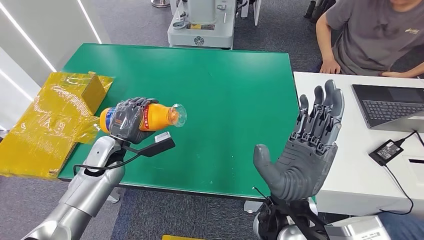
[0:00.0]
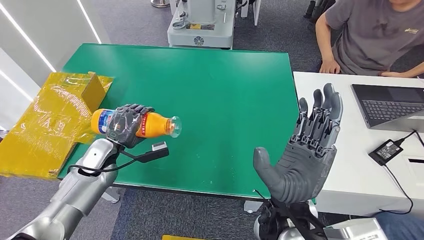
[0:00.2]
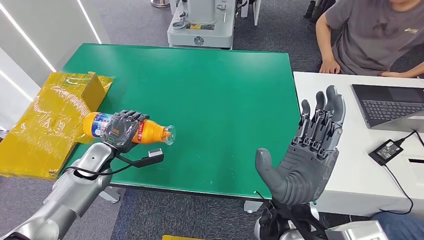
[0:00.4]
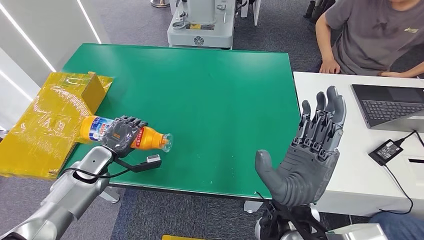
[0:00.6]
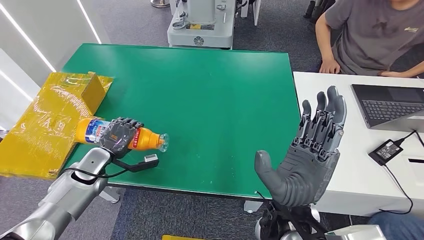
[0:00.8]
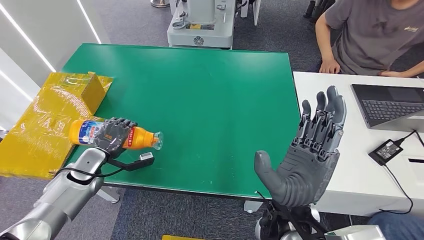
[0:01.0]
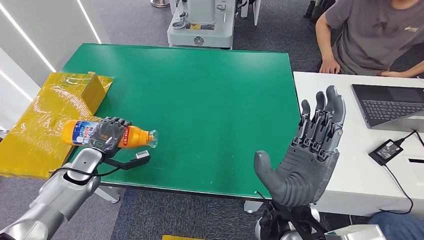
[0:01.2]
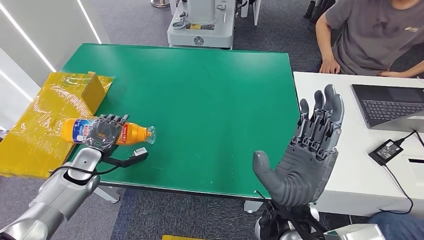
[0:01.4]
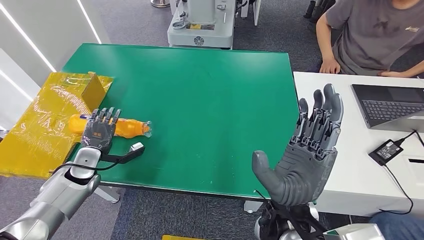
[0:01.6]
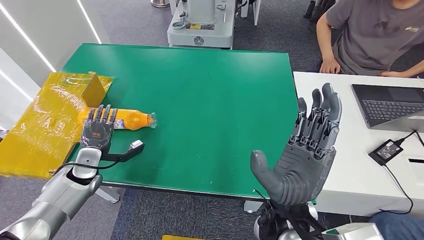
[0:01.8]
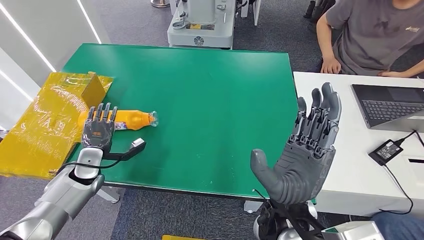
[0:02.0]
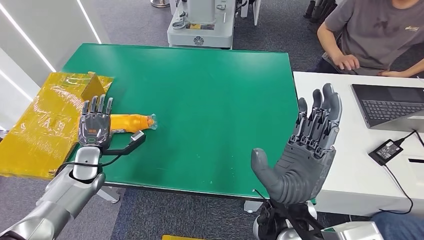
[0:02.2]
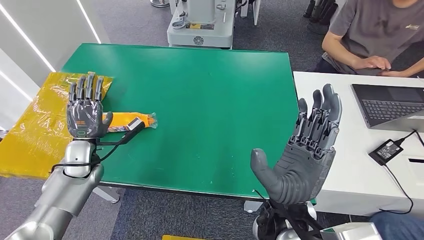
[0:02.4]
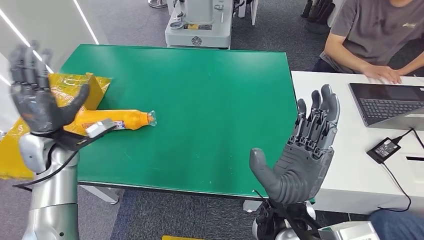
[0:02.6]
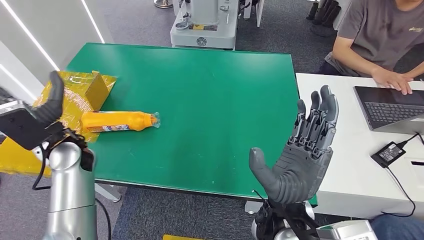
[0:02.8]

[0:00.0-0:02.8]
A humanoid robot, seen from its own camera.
Step, 0:00.0 to 0:02.8: Turn the bottle to the front side.
0:00.0 to 0:01.4: The left hand shifts roughly 15 cm to the left.
